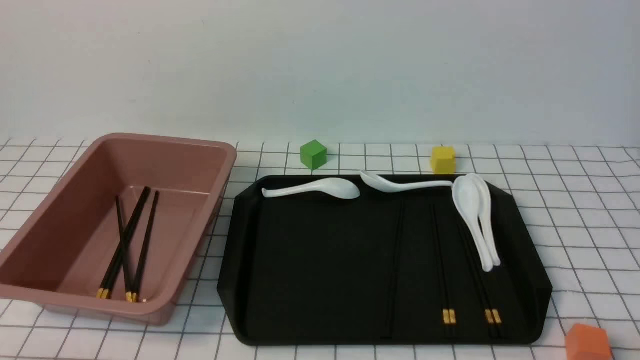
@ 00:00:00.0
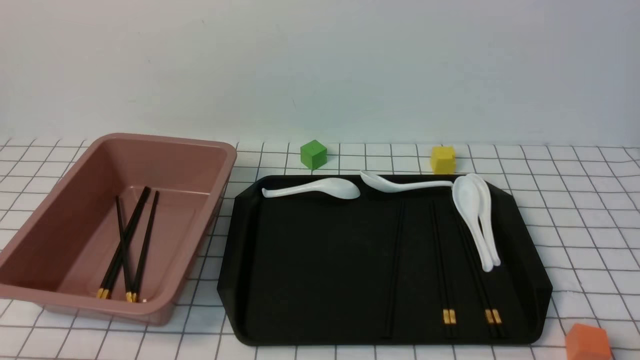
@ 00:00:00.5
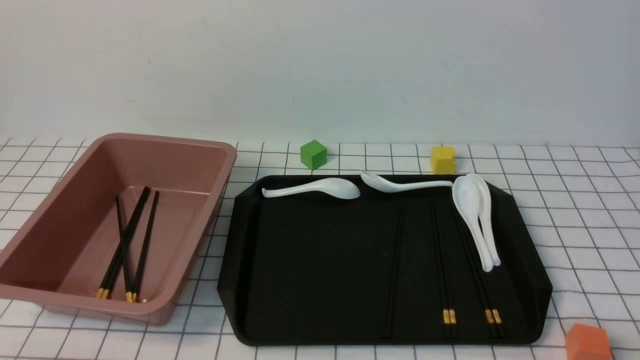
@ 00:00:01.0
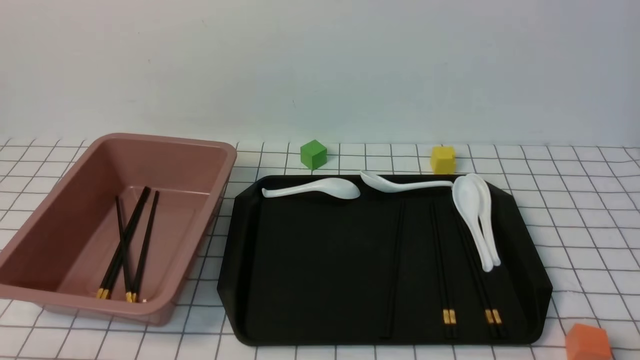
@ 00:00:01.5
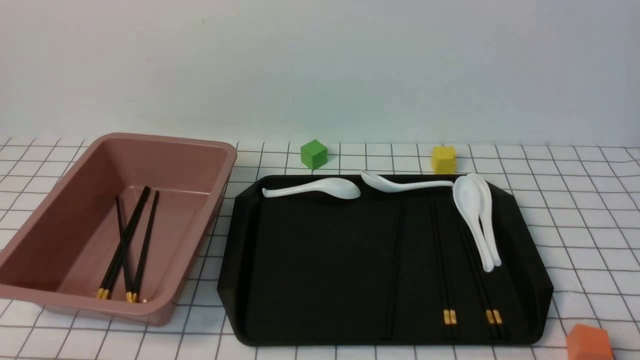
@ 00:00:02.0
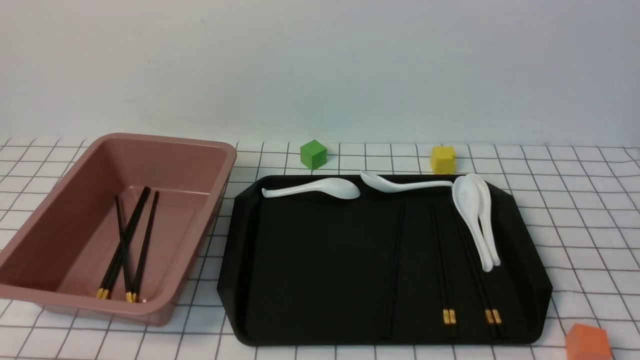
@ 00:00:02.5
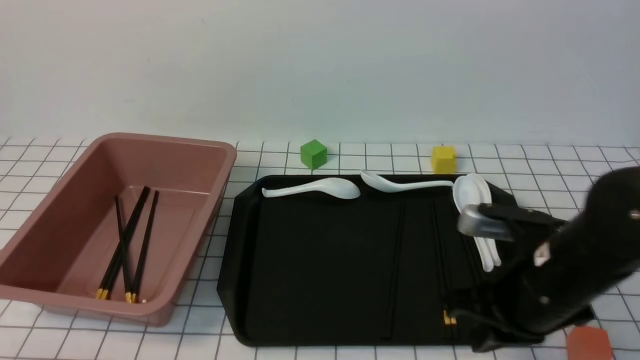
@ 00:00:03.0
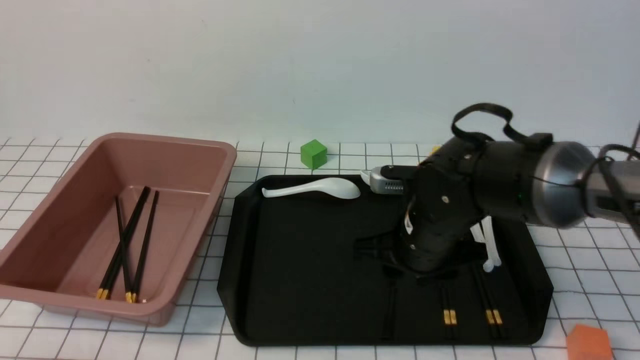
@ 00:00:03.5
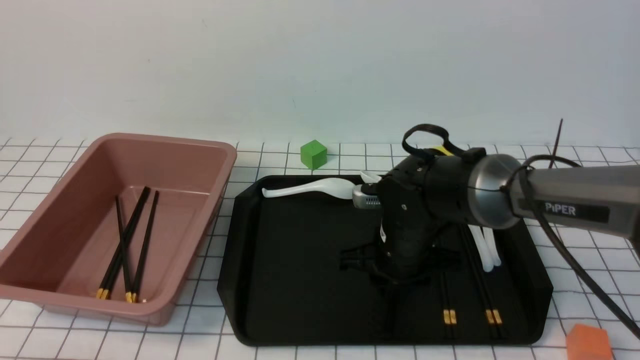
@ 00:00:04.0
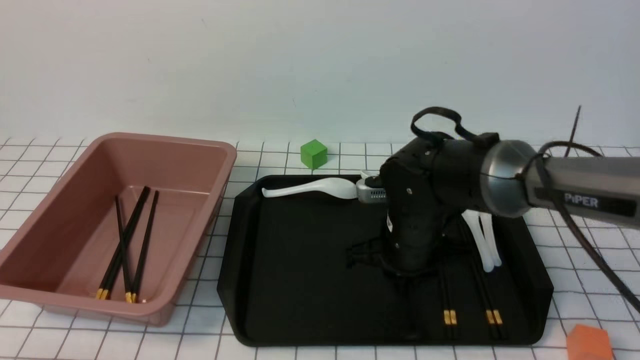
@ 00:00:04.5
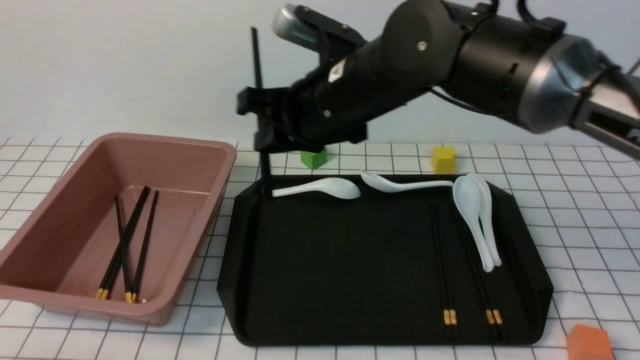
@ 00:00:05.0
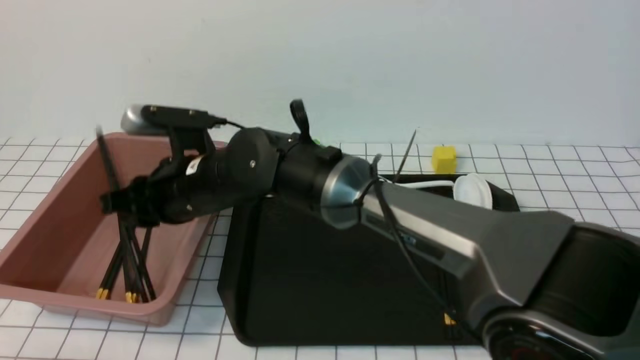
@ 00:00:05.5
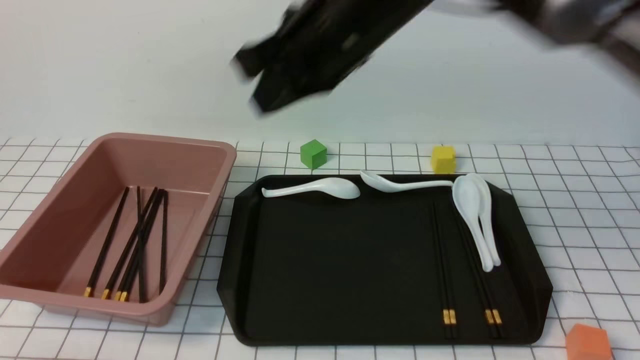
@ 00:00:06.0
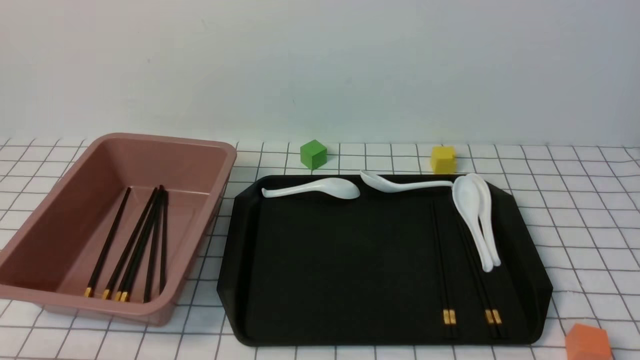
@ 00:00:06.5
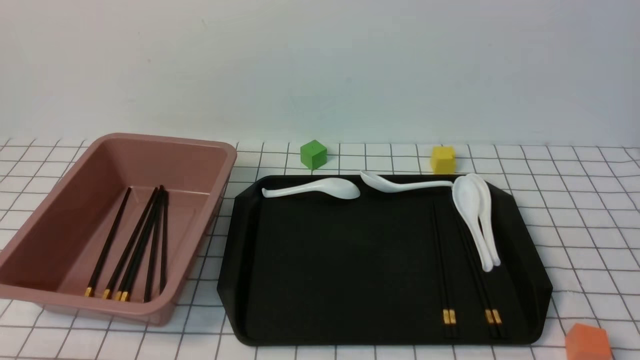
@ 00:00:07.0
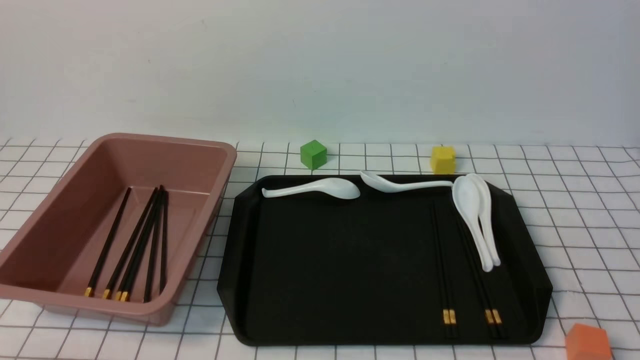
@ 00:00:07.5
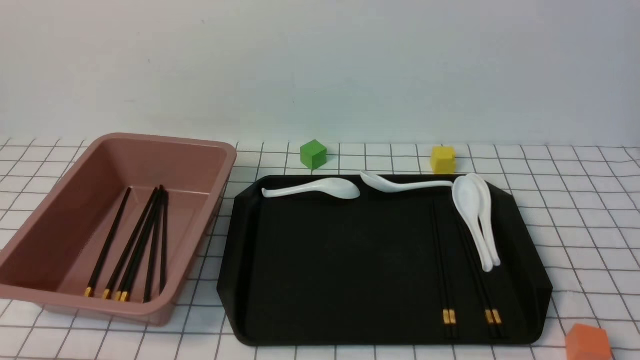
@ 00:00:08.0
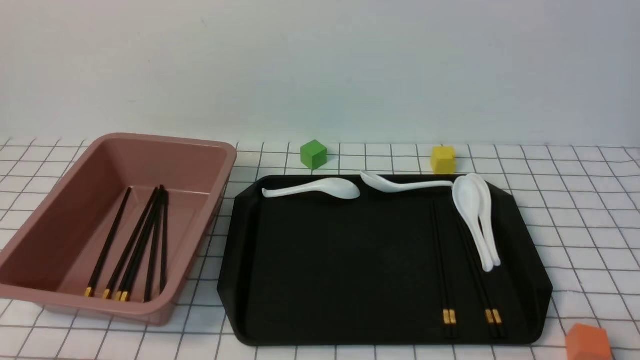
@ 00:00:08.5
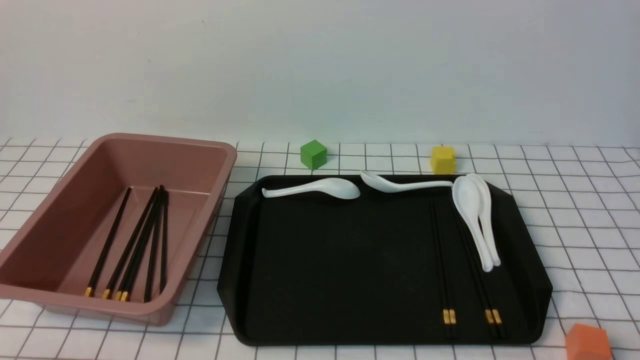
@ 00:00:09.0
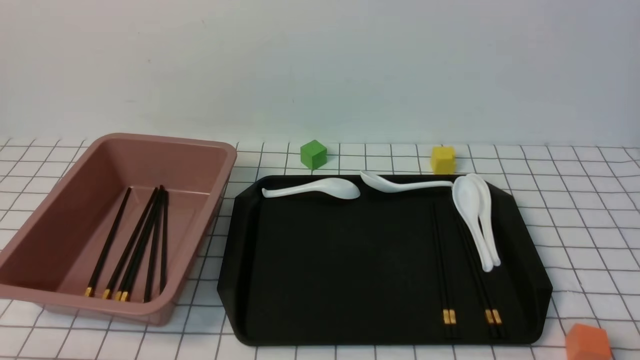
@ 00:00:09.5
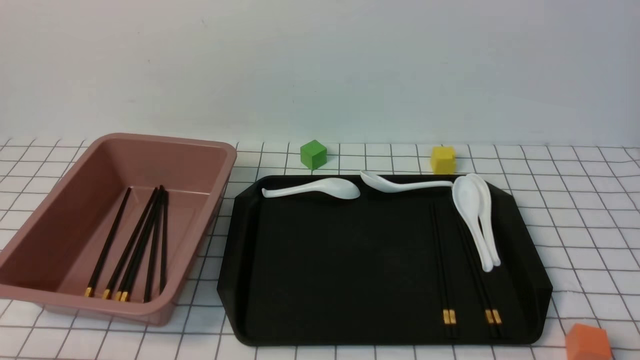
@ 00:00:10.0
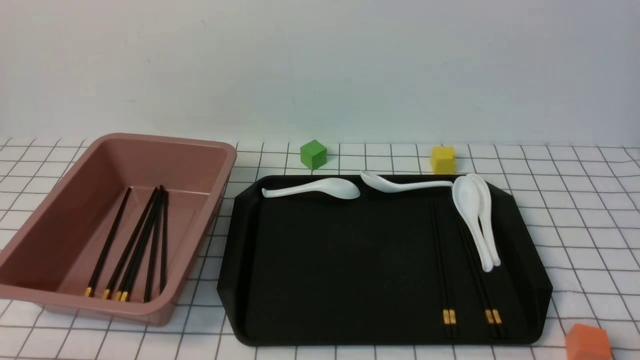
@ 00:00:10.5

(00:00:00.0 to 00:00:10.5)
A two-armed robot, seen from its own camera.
Step, 00:00:00.0 - 00:00:04.5: use the right arm to grab a pair of chopsticks.
Step, 00:00:05.0 - 00:00:05.5: use the right arm to put the chopsticks into the lunch box.
00:00:02.0 - 00:00:04.0: The right gripper heads forward and to the left, covering some 35 cm, and closes, then reopens.
00:00:04.0 - 00:00:06.5: The left gripper opens up, while the right gripper moves up and down over some 35 cm, changing direction 2 times, and closes its fingers.

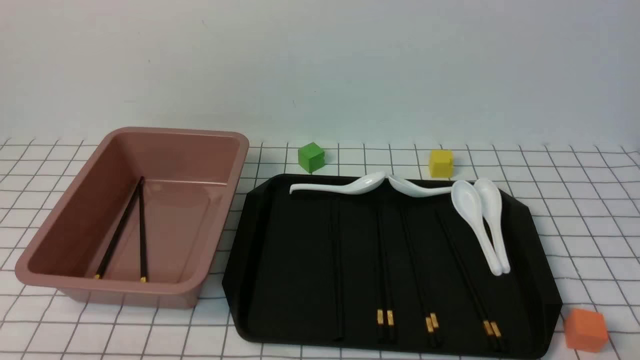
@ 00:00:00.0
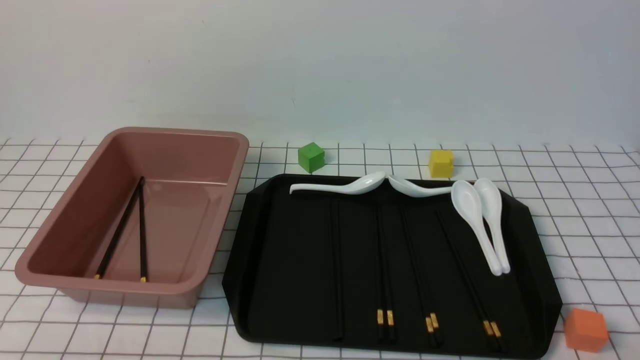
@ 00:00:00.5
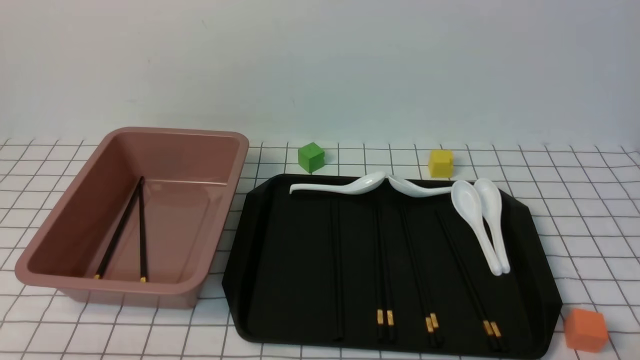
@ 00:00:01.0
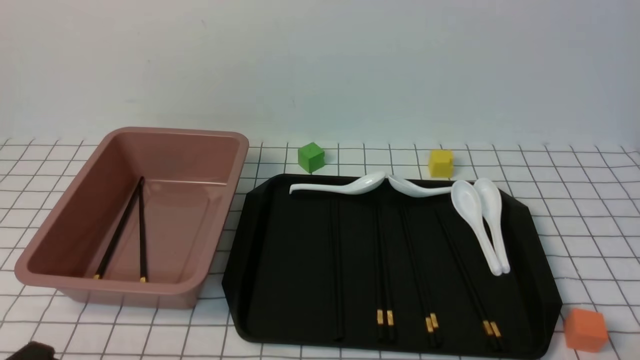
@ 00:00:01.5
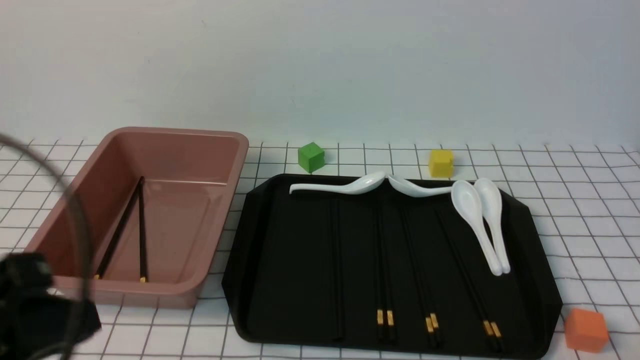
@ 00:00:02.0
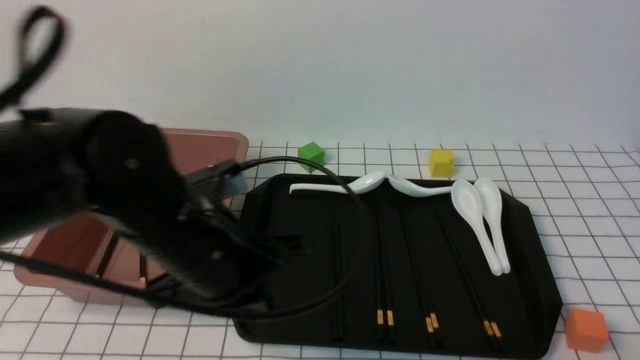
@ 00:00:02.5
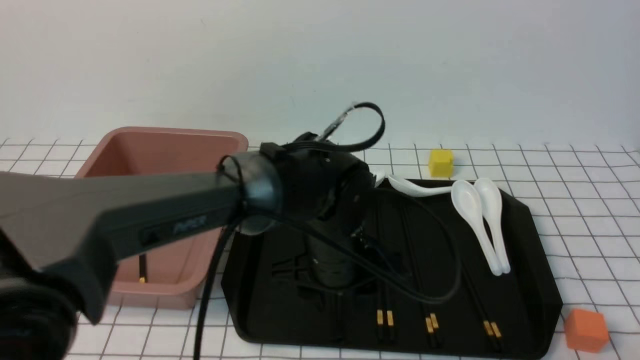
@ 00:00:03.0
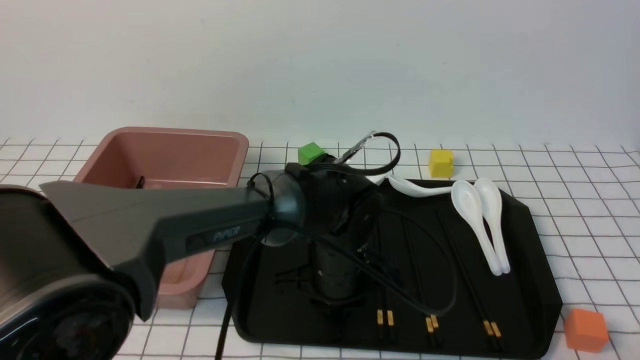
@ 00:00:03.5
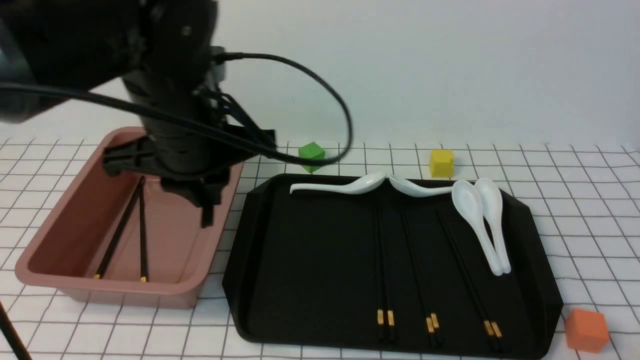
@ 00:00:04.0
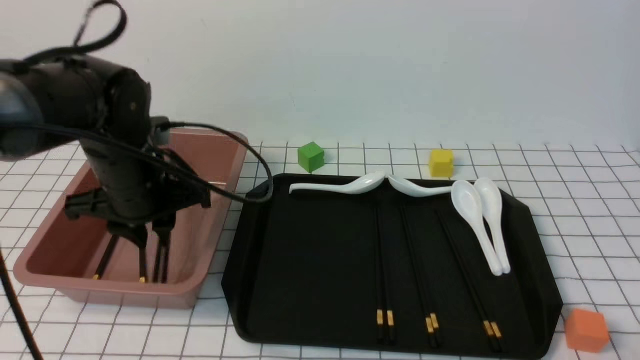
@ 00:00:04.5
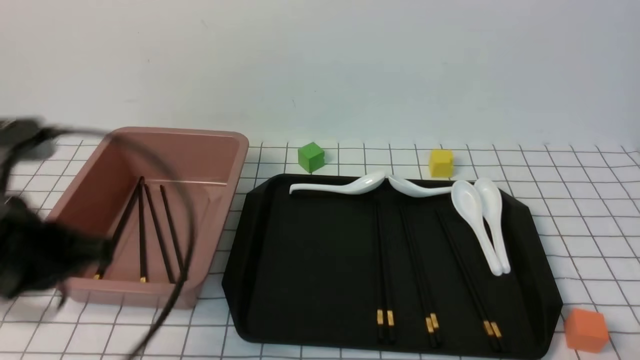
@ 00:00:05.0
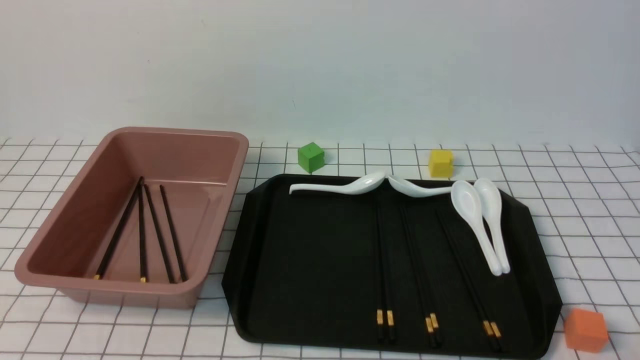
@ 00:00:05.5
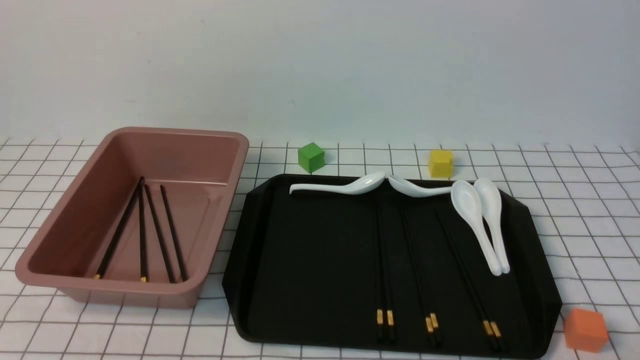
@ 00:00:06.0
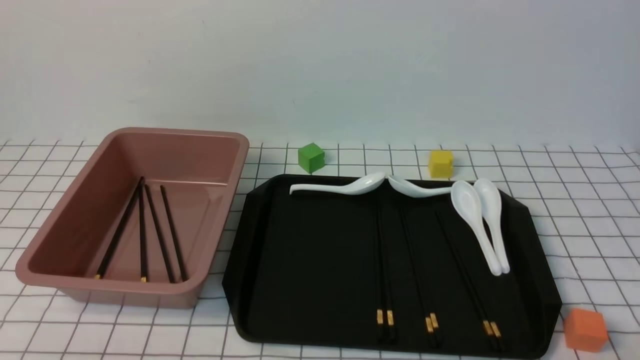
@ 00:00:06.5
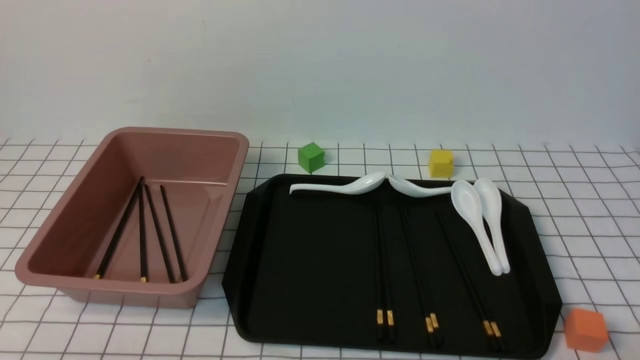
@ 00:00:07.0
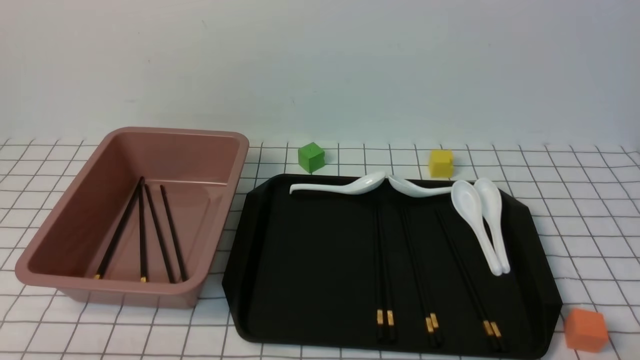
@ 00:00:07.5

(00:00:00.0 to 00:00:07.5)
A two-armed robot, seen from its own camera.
Step, 00:00:00.0 - 00:00:03.5: use the left arm to grab a pair of chopsticks.
Step, 00:00:04.0 - 00:00:04.5: use the left arm to put the chopsticks into the lunch box.
00:00:00.0 - 00:00:02.0: The left gripper is displaced upward and forward by some 15 cm.
00:00:02.0 - 00:00:04.0: The left gripper shifts about 25 cm forward and to the right, and opens, then closes again.
00:00:04.0 - 00:00:05.5: The left gripper heads backward and to the left, covering some 30 cm.
